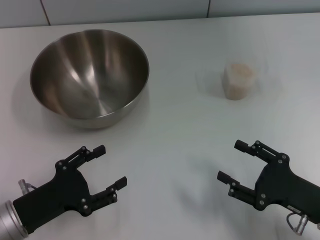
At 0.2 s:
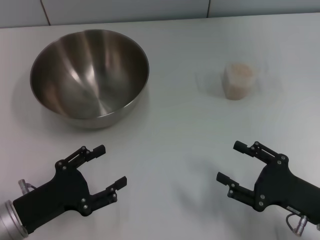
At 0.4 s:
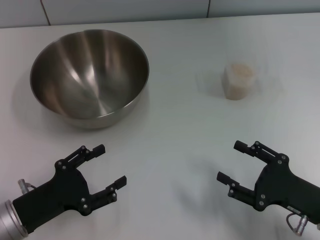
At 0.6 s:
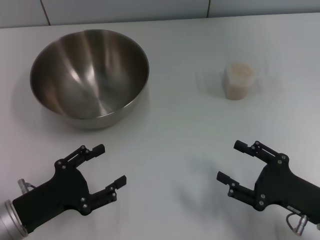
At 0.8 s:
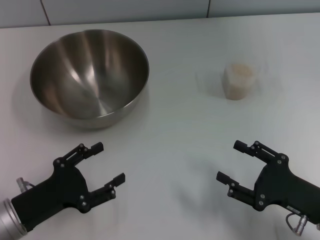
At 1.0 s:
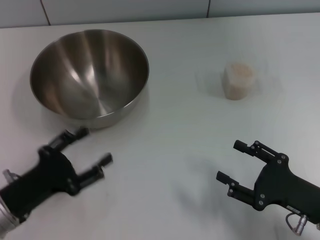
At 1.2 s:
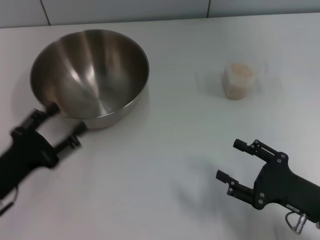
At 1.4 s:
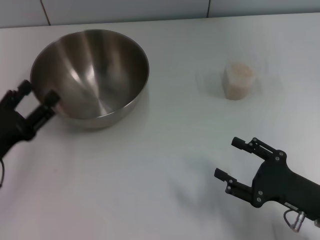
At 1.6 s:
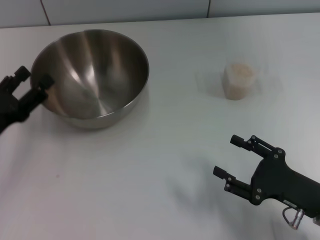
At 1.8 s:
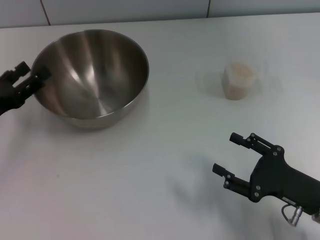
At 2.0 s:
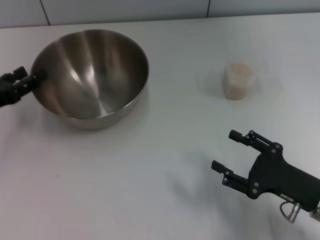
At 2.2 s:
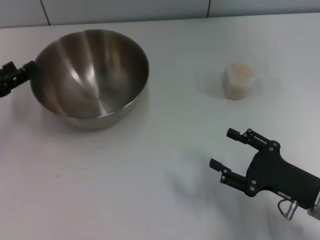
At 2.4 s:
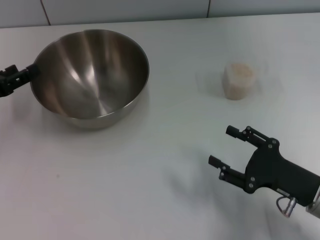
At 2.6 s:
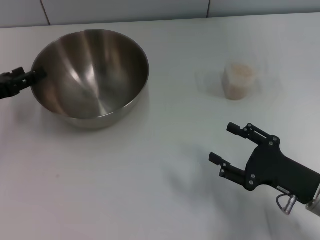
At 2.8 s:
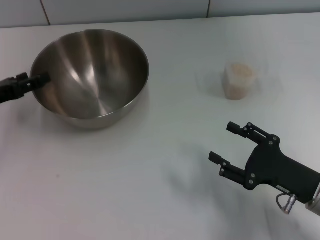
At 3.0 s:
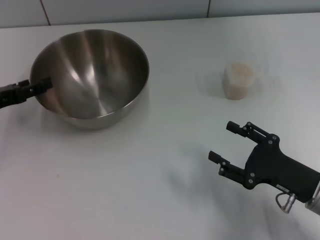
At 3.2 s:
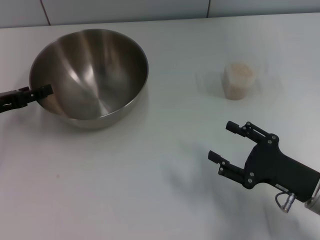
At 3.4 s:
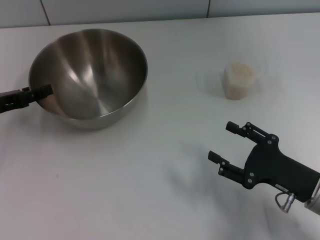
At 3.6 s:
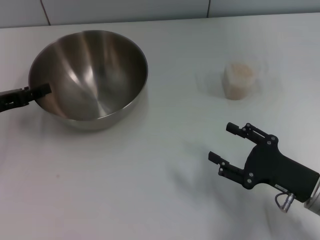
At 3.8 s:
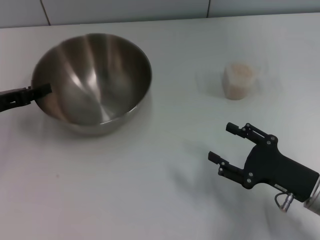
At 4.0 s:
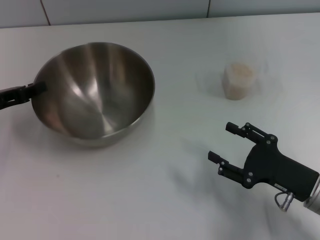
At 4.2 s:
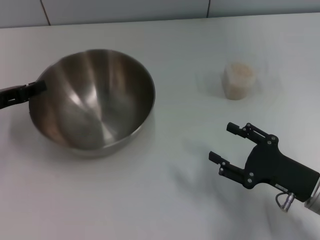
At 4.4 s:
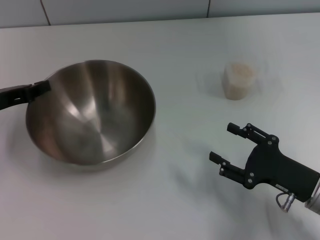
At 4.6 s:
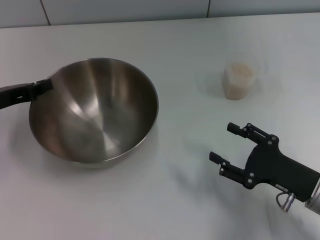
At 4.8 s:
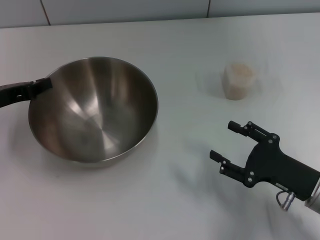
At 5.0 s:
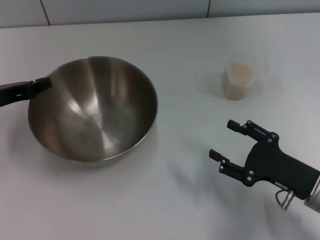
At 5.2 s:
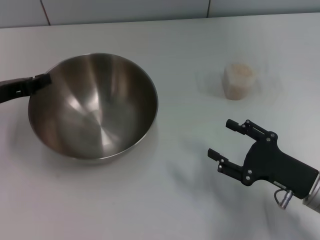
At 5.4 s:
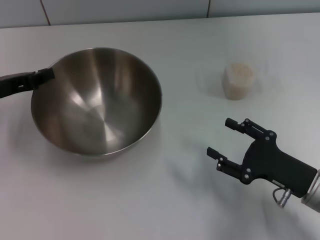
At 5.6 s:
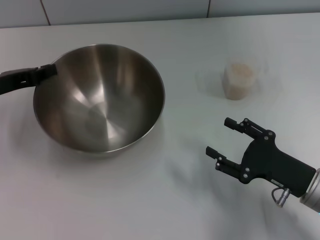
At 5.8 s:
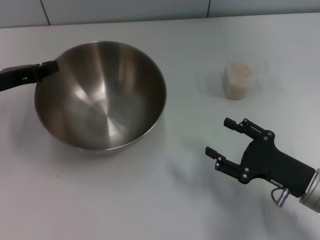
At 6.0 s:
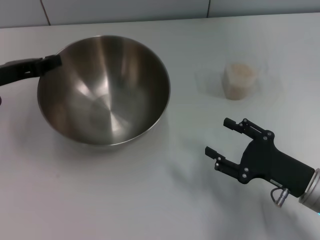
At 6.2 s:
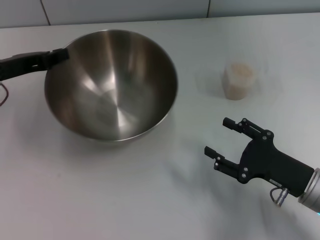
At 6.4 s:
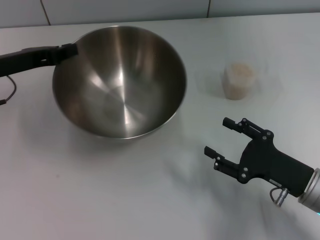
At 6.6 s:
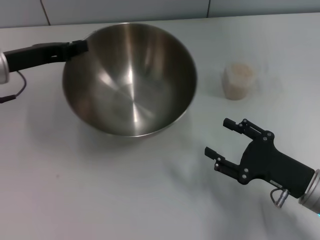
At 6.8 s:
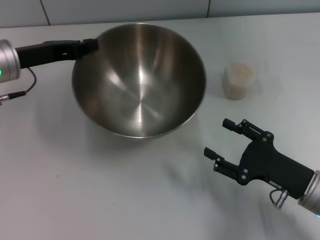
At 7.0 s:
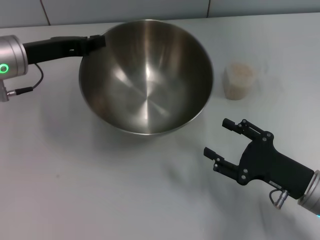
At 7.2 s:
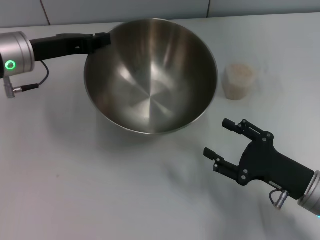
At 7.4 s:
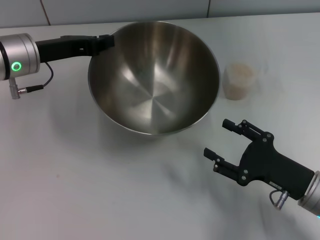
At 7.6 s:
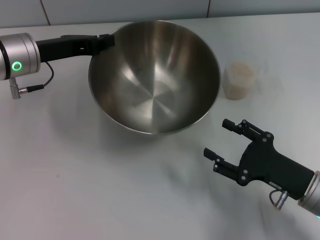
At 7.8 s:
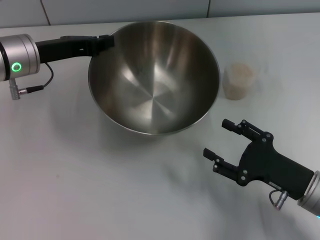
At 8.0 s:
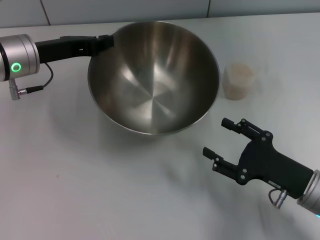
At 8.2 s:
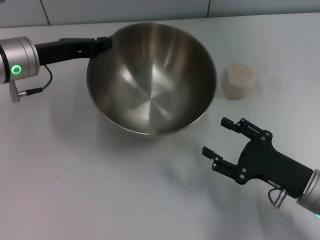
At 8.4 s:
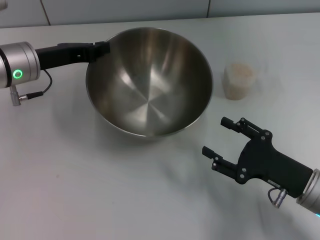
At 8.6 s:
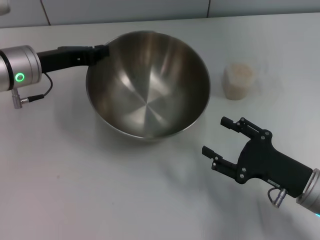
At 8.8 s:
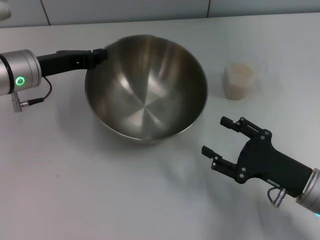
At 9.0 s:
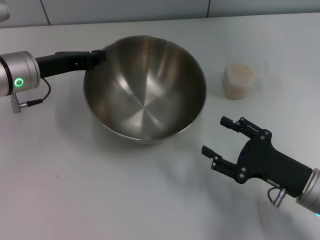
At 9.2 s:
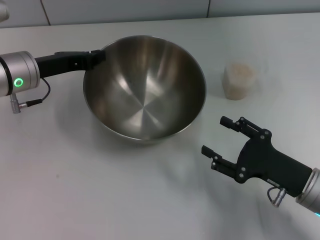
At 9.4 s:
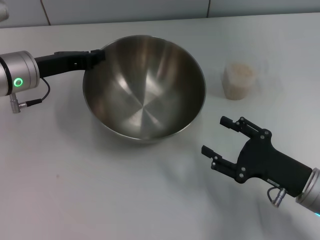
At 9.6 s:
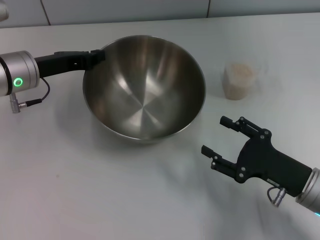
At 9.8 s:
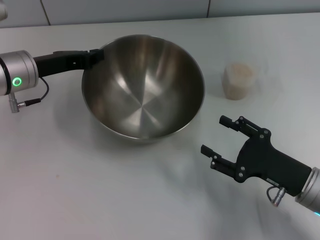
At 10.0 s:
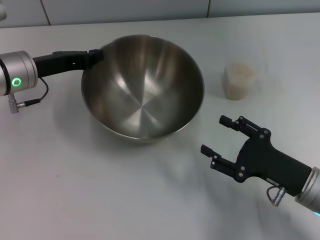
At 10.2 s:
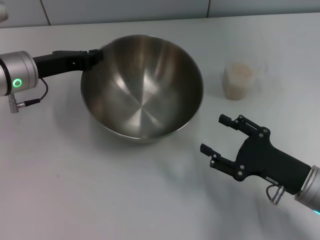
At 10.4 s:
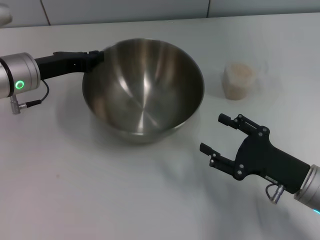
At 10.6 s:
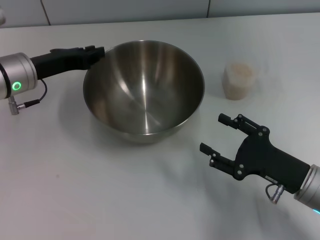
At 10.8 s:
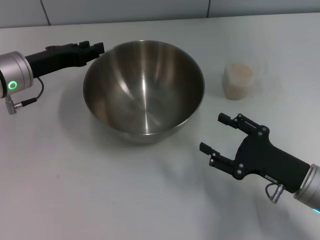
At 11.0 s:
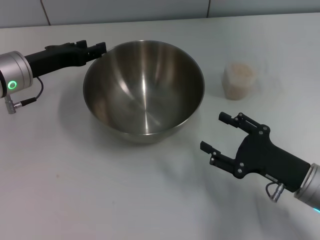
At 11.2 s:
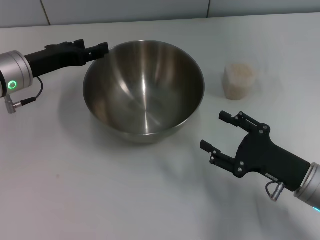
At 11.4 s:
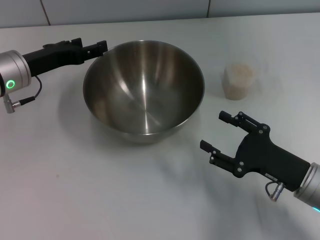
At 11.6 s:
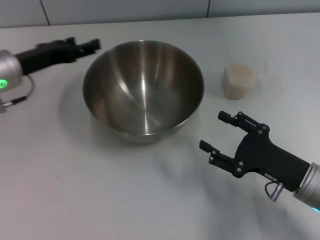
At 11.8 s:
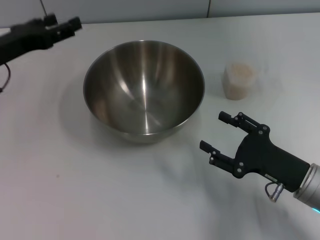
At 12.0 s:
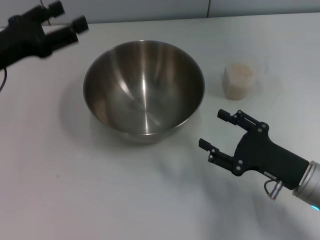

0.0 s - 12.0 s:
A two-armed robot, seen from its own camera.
Task of the whole recording: Place the bowl in the middle of the table with one hand and pour the rice from the grain cup into it with the other hand.
Step, 0.0 s - 5.0 s: Pick up the bowl with the left gripper.
Step, 5.2 s - 11.6 s: Place the bowl in the center of view with the left gripper.
0.0 s - 1.6 s: The left gripper shifts about 5 cm forward.
1.6 s - 3.0 s: The left gripper heads forward, covering roughly 5 cm.
3.0 s - 4.4 s: The left gripper closes up.
6.0 s - 7.6 s: The left gripper goes some 10 cm to the right.
7.6 s - 9.0 s: The grippers stay close to where they were, moving slightly.
9.0 s - 10.4 s: Both grippers stay about where they are.
10.4 s - 12.0 s: The left gripper changes place by roughly 10 cm, and opens.

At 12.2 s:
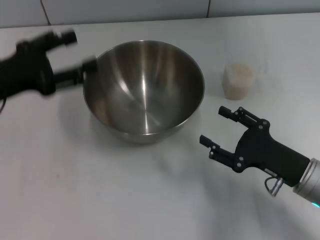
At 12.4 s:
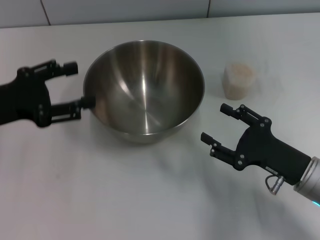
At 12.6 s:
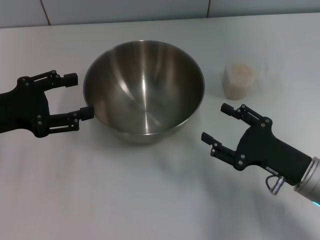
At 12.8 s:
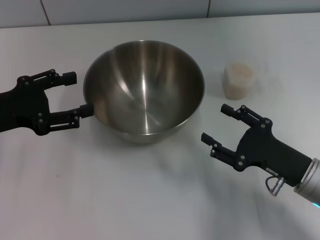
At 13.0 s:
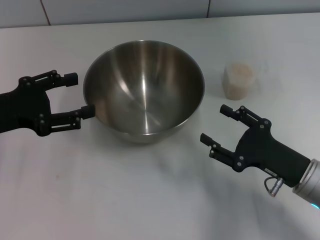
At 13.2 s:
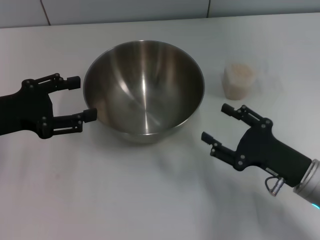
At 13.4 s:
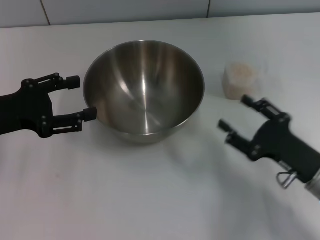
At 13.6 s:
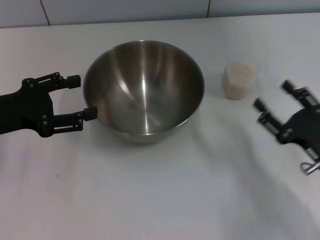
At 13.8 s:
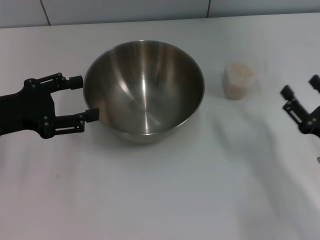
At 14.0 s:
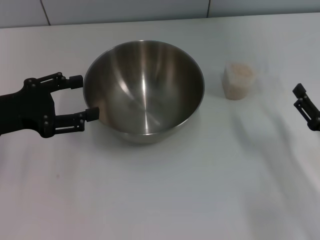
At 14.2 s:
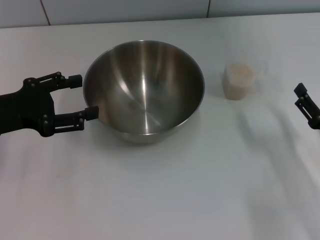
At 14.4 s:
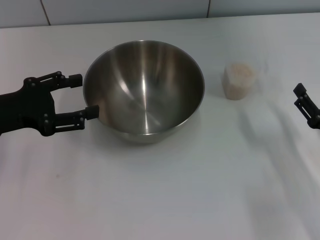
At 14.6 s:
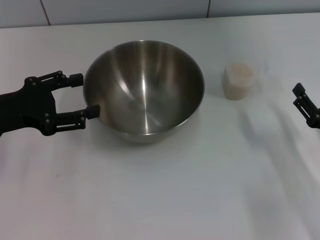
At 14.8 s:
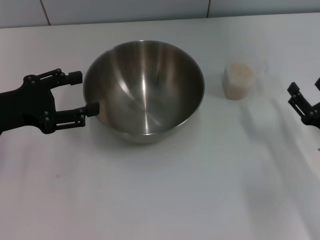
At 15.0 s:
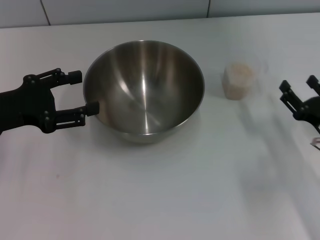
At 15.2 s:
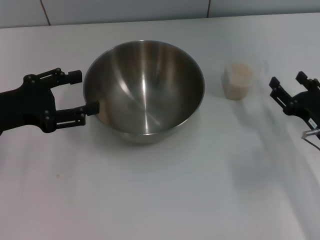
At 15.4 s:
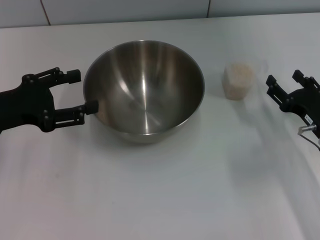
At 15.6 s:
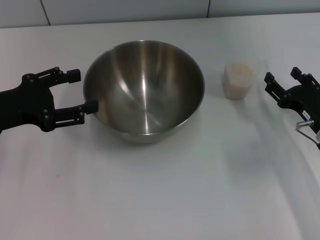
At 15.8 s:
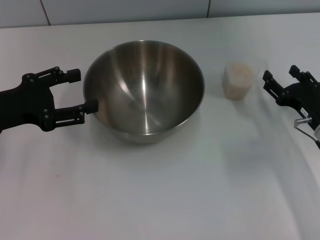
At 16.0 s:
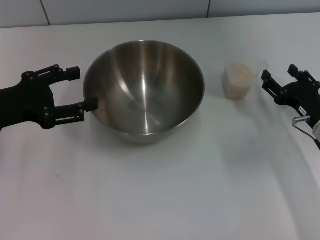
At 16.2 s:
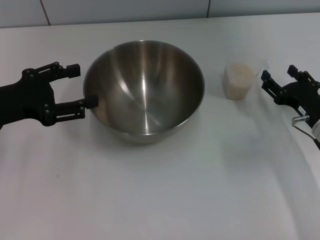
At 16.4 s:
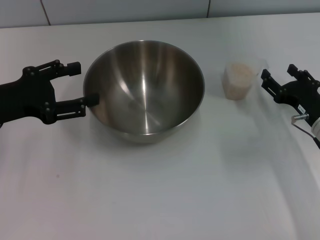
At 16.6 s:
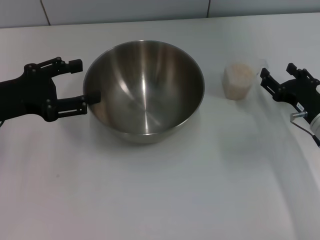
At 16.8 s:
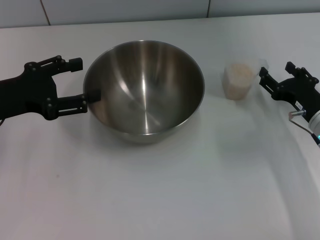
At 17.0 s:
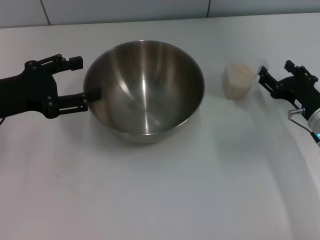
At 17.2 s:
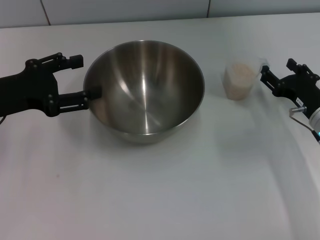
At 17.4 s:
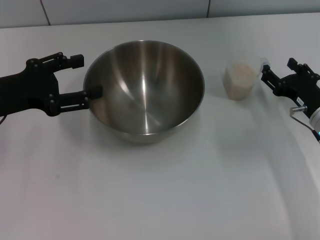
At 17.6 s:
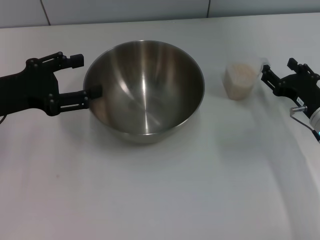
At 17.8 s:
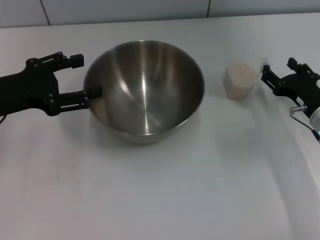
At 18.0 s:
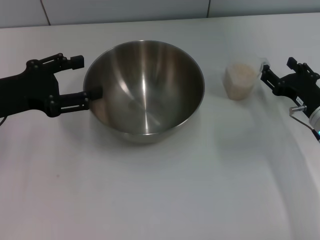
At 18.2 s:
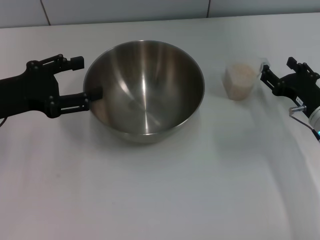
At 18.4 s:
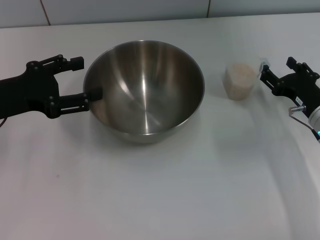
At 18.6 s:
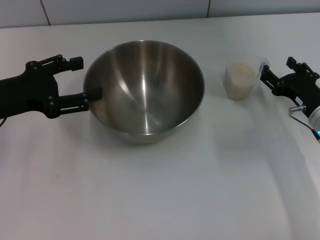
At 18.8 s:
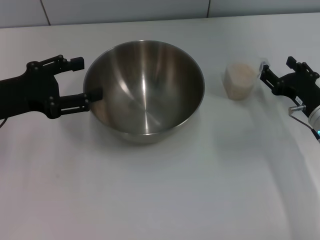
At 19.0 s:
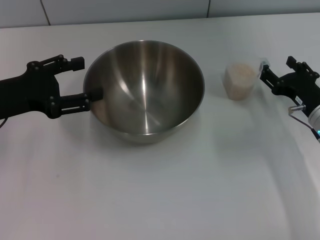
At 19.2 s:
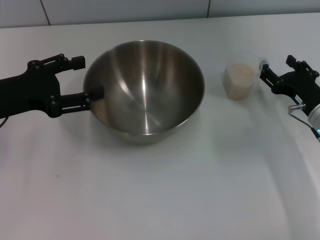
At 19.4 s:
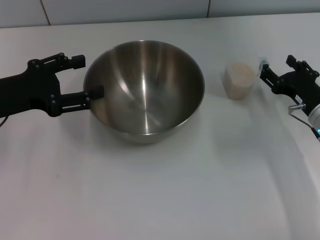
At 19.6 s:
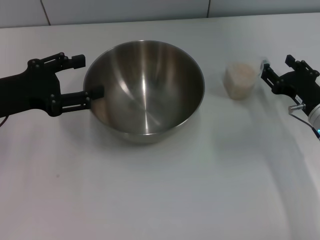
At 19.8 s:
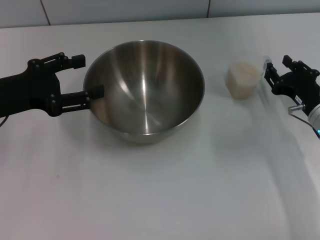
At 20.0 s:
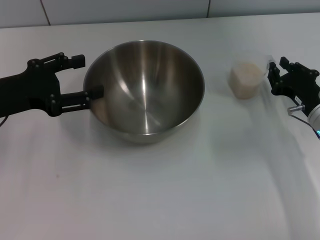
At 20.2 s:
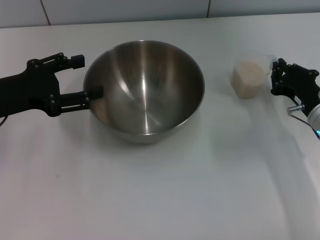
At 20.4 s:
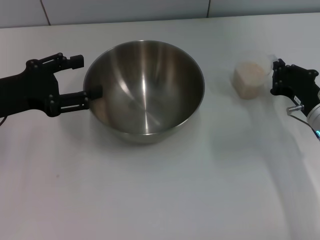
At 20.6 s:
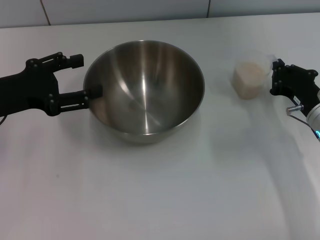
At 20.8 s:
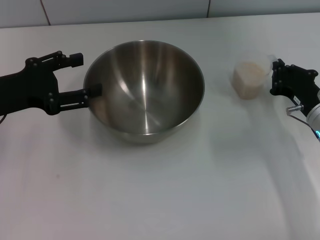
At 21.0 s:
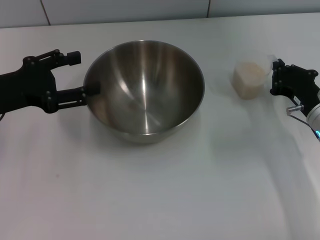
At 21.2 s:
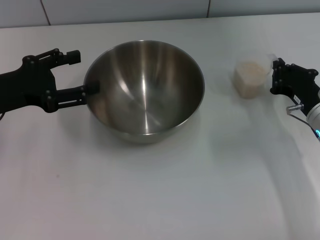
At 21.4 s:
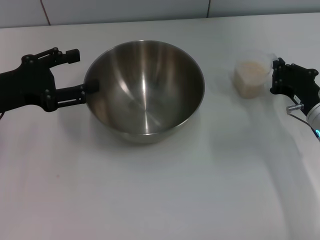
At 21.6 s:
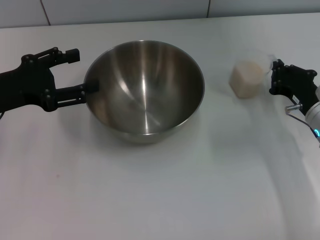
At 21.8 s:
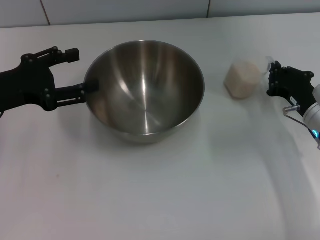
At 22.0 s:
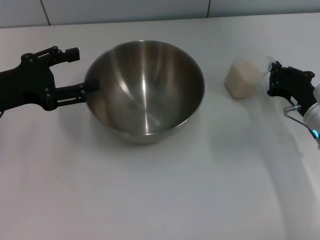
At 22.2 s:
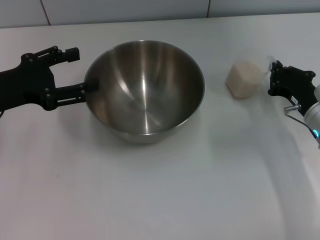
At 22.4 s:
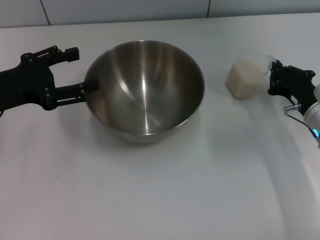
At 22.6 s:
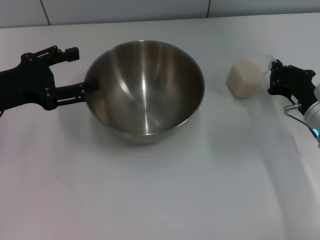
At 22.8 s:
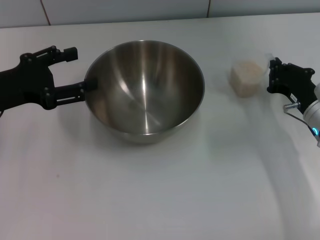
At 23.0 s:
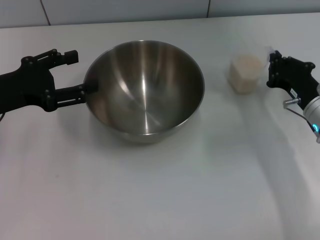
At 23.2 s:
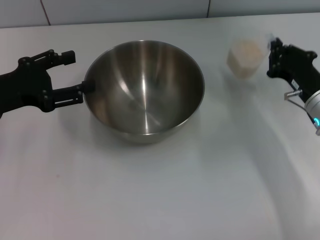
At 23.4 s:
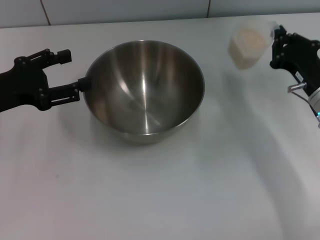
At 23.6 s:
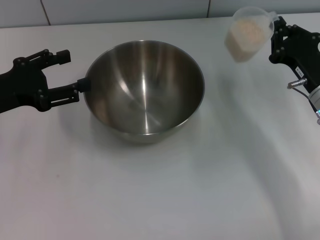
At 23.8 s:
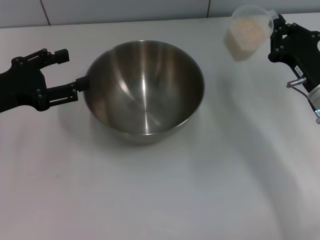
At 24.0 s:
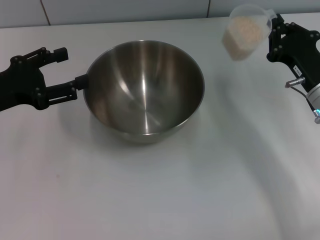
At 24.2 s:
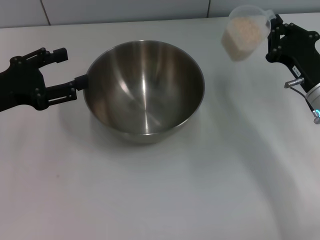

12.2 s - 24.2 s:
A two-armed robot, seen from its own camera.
Task of the whole recording: Place the bowl in the middle of the table with one hand and pour the rice from the grain cup into it with the other hand.
Step, 12.2 s - 23.2 s: Pick up the cup with rice in it with the right gripper.
12.2 s - 13.8 s: The right gripper shifts approximately 5 cm to the right.
13.8 s - 15.2 s: The right gripper shifts roughly 5 cm forward.
15.2 s - 16.6 s: The grippers stay close to where they were, moving slightly.
16.6 s - 18.2 s: Both grippers stay put.
18.2 s - 19.8 s: Both grippers stay about where they are.
19.8 s - 21.2 s: The right gripper closes its fingers.
21.2 s - 22.6 s: Both grippers stay about where they are.
